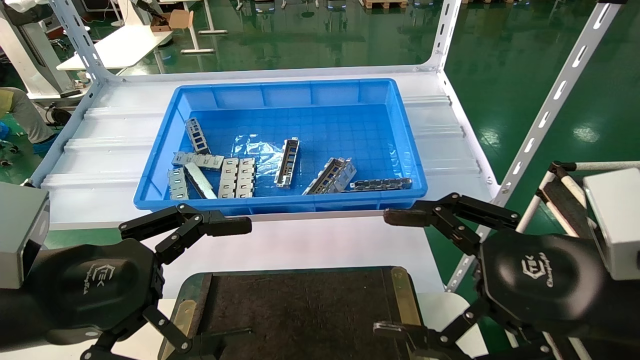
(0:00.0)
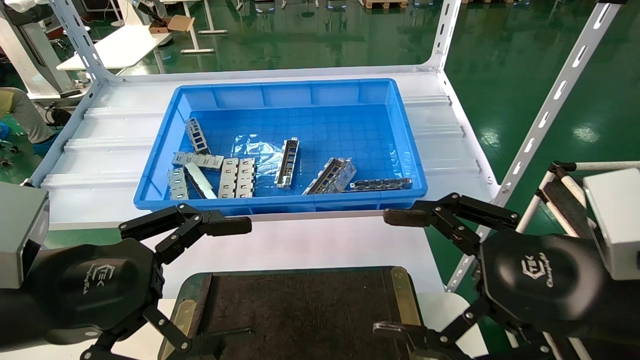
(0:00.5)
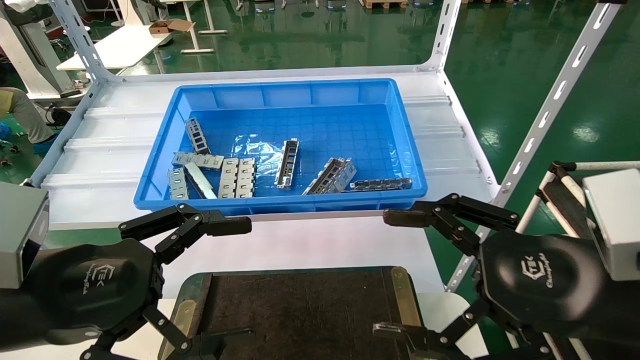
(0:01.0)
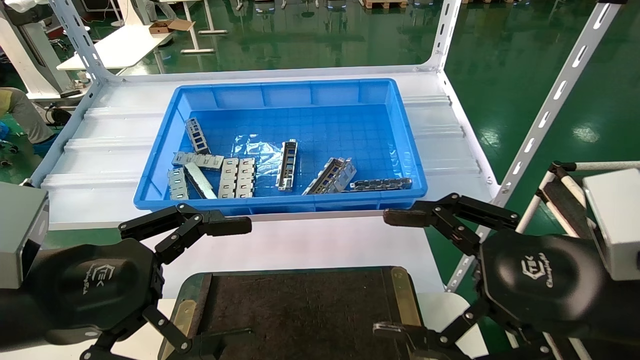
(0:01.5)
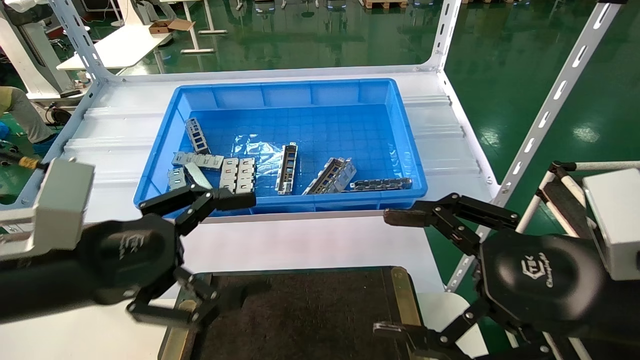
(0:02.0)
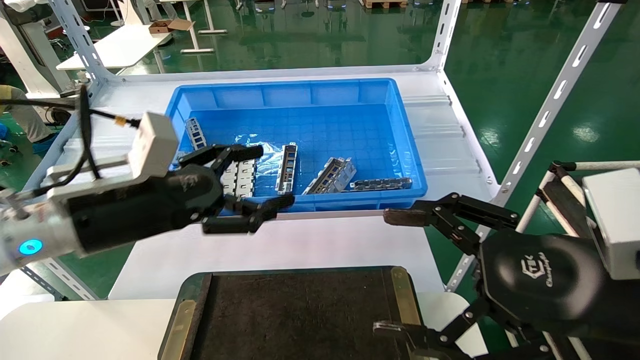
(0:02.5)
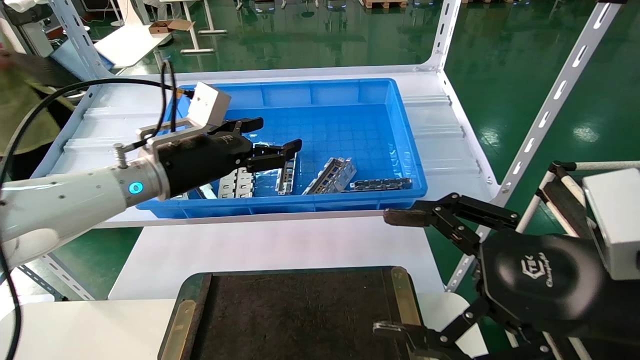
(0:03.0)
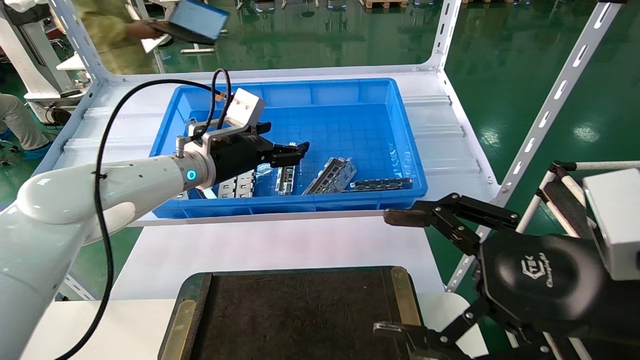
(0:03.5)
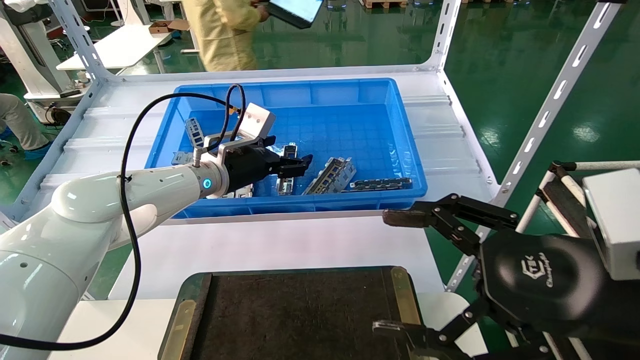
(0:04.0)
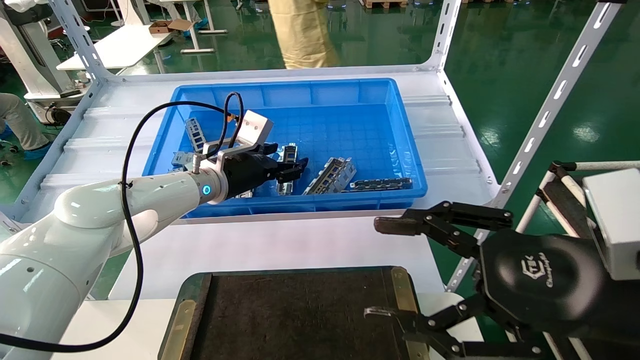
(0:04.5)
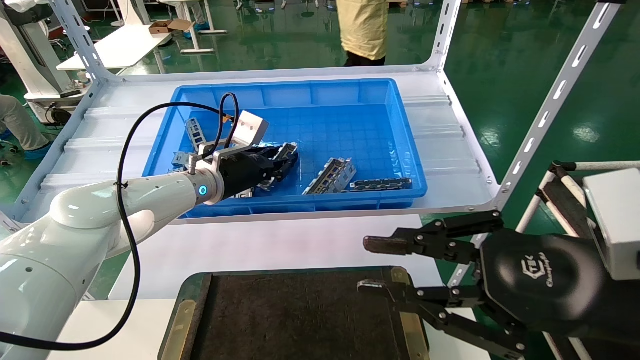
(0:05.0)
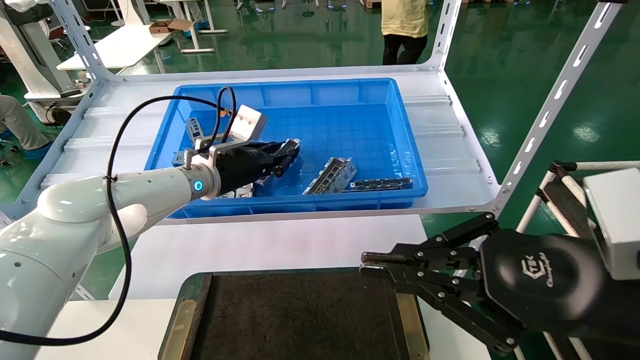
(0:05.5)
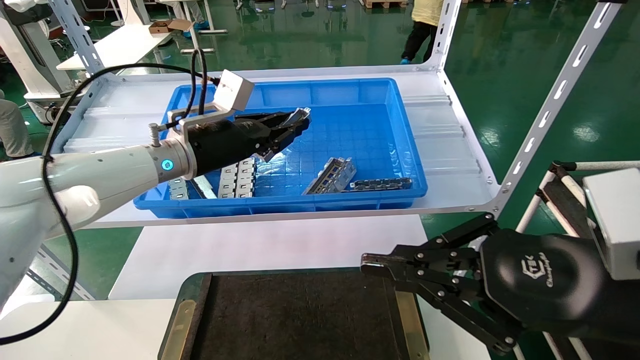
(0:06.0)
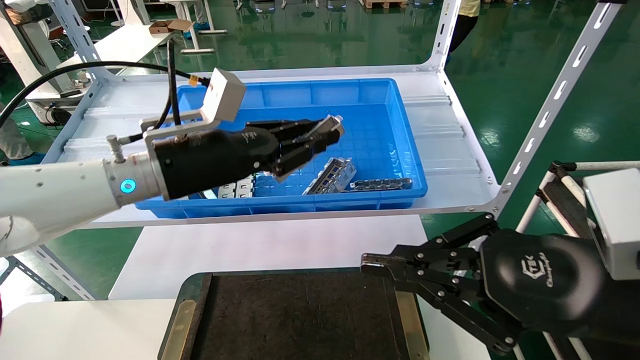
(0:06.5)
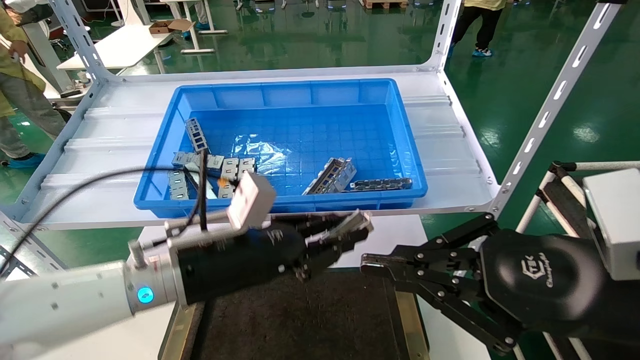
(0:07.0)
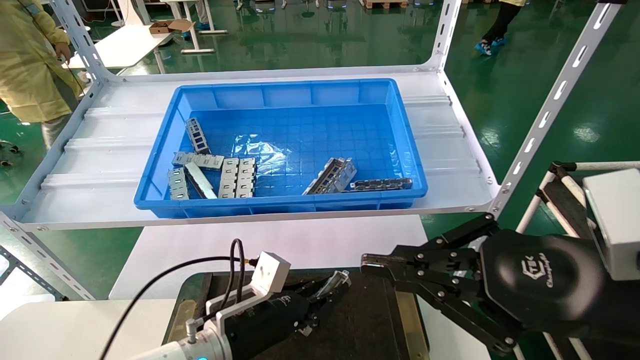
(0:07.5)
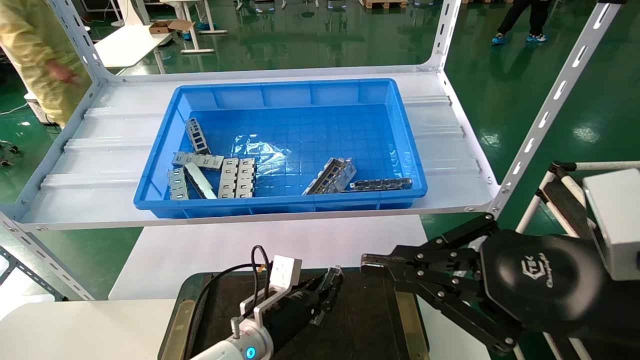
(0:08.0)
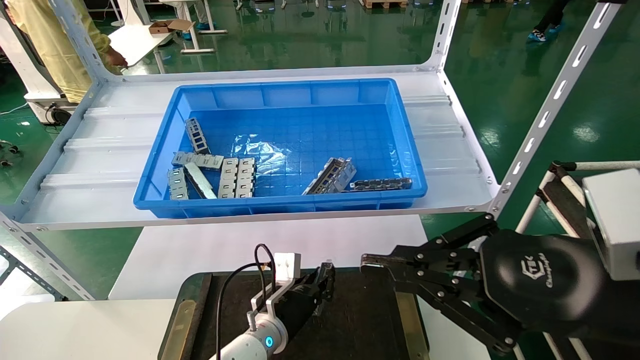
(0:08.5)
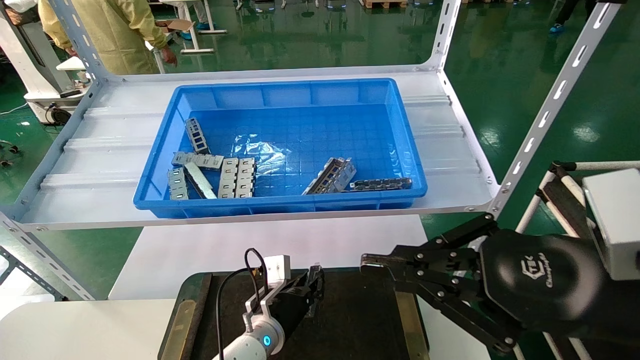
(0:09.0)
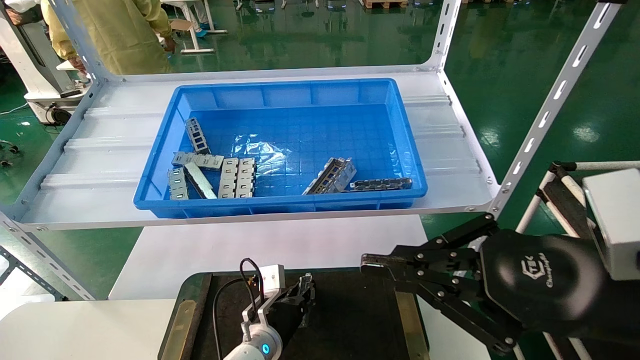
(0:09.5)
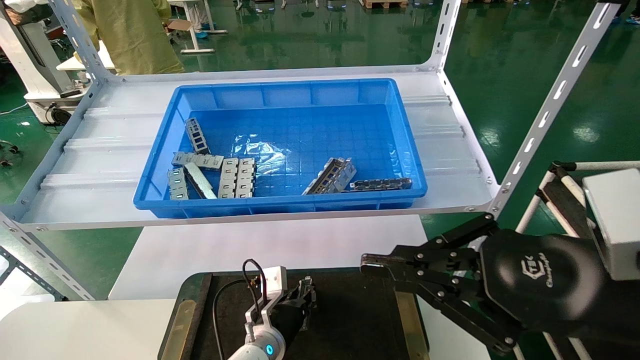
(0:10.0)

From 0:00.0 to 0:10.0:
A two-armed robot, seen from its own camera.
Task of the whole recording: Grasp the part with one hand and place it on the black container.
Step, from 0:02.5 to 0:06.0: Pick up the front USB bracket from the feeding area.
From 0:00.0 to 0:02.0: There are only small adjustments of the grippers.
From 0:02.0 to 0:04.0: The left gripper travels forward by about 25 cm.
From 0:04.0 to 0:06.0: The left gripper moves roughly 5 cm, and closes. The right gripper closes.
From 0:06.0 to 0:08.0: The left gripper goes approximately 30 cm downward.
From 0:08.0 to 0:10.0: The left gripper shifts by some 5 cm.

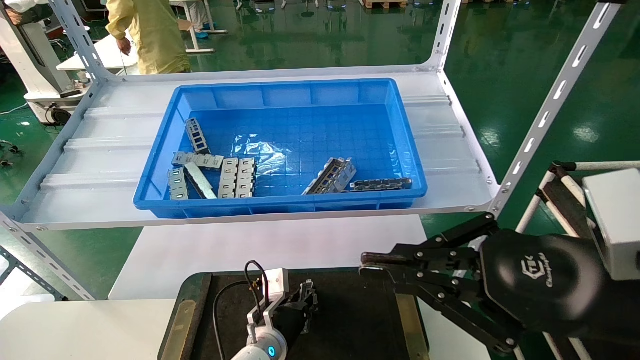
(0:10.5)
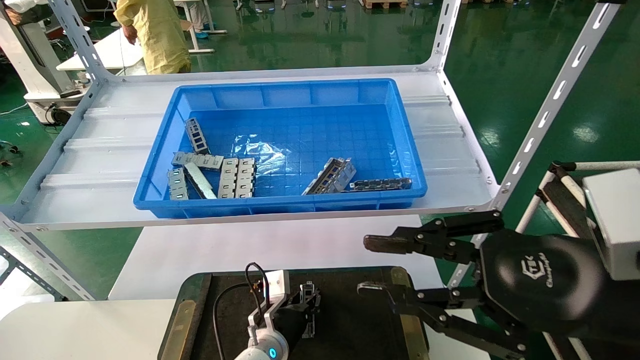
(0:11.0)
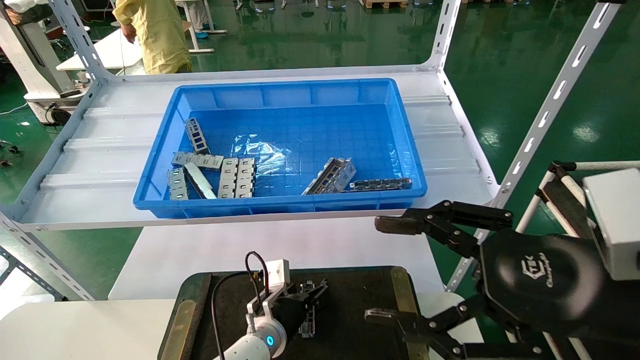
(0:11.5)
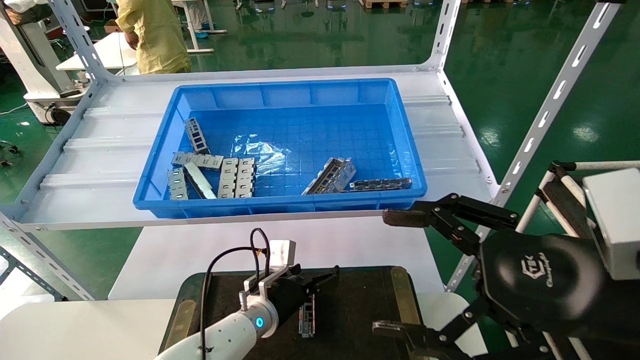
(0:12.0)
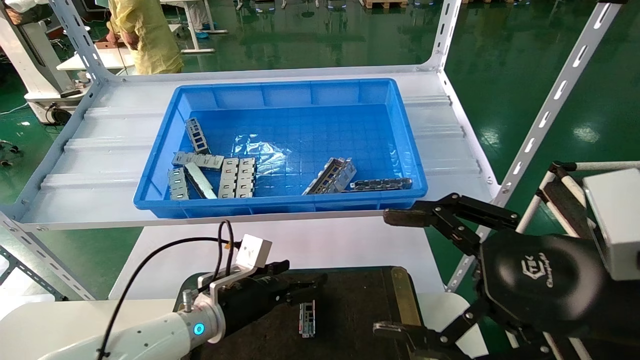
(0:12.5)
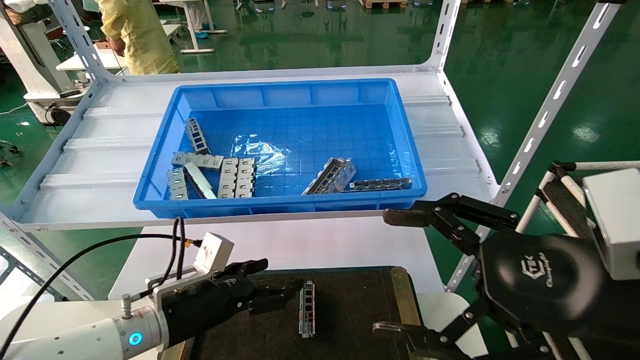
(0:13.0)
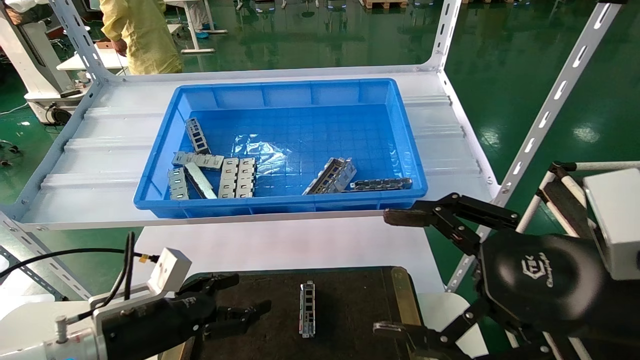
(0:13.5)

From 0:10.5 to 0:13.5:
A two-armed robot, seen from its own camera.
Task of the whole recording: Grasp the part with one hand and place it on the black container.
From 0:10.5 to 0:12.0: The left gripper heads upward, covering some 5 cm, and opens its fingers; the right gripper opens its fingers.
From 0:12.0 to 0:13.5: The left gripper heads to the left, backward and upward, covering roughly 20 cm.
